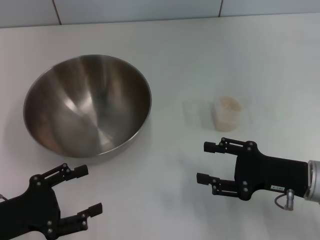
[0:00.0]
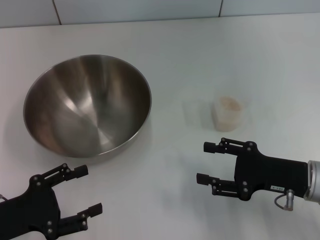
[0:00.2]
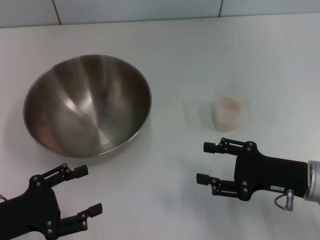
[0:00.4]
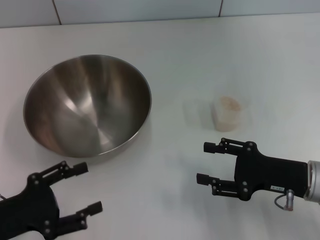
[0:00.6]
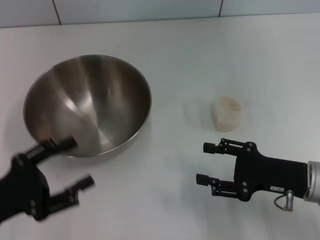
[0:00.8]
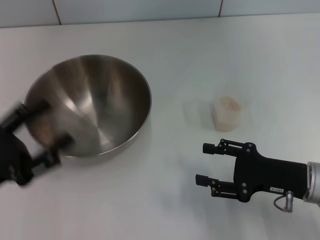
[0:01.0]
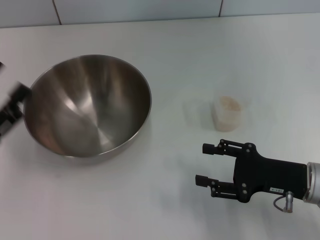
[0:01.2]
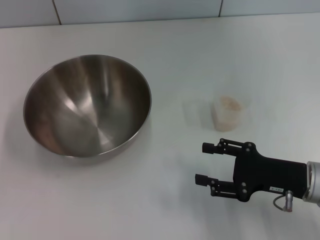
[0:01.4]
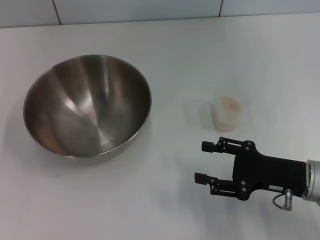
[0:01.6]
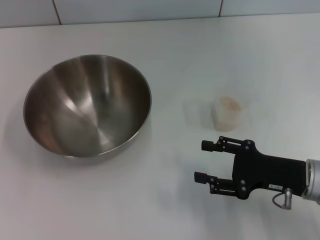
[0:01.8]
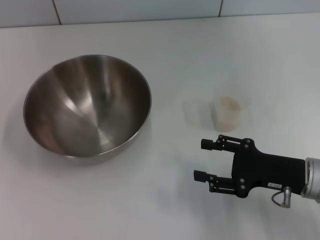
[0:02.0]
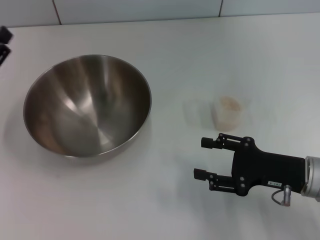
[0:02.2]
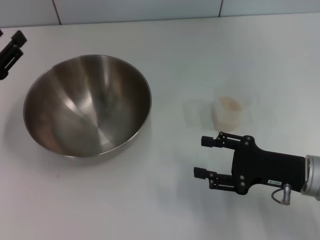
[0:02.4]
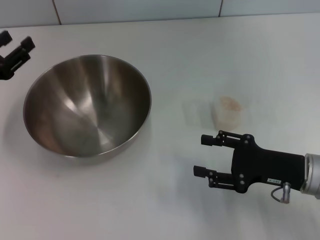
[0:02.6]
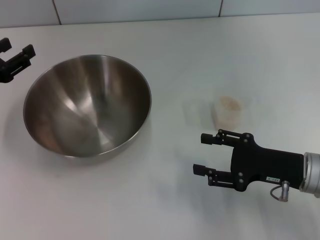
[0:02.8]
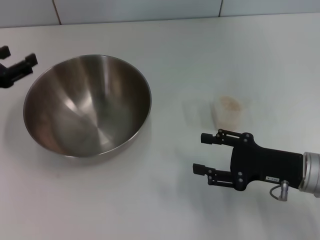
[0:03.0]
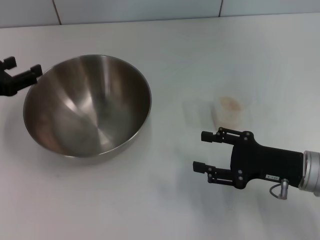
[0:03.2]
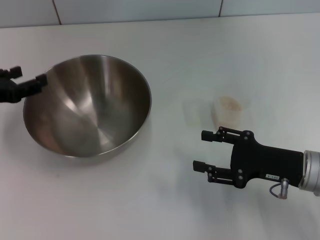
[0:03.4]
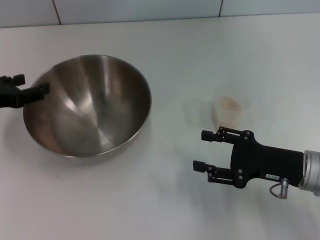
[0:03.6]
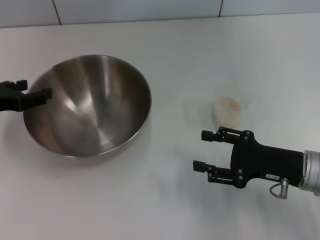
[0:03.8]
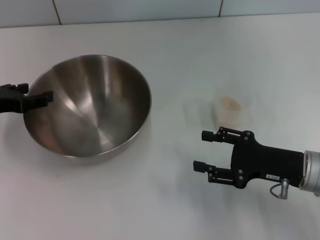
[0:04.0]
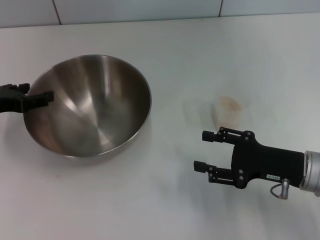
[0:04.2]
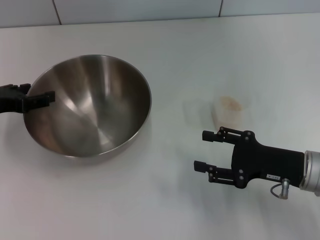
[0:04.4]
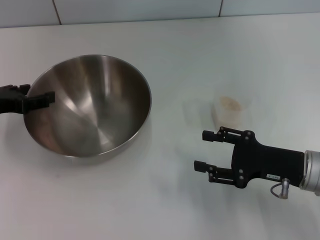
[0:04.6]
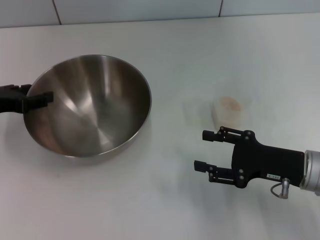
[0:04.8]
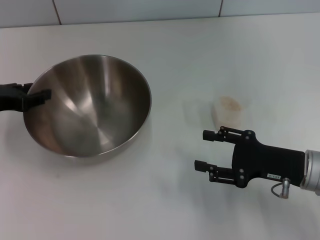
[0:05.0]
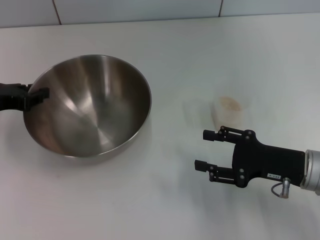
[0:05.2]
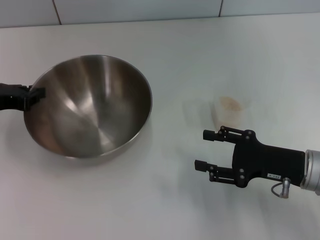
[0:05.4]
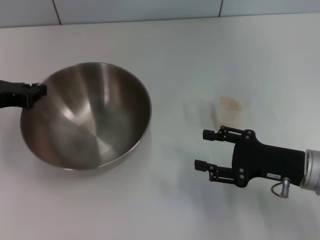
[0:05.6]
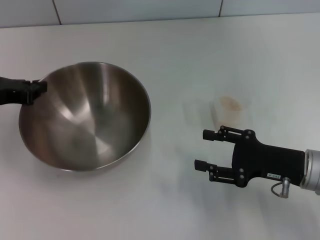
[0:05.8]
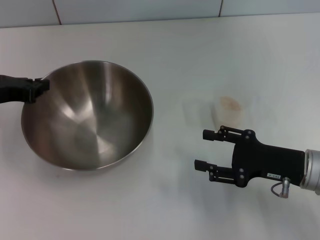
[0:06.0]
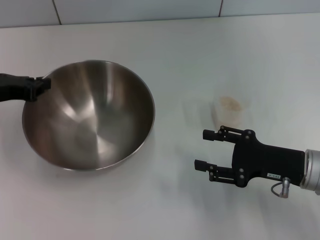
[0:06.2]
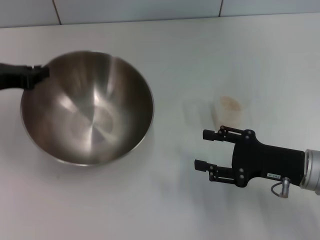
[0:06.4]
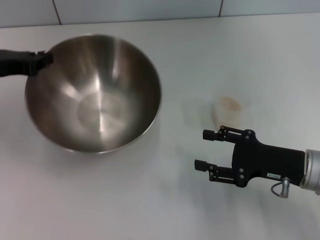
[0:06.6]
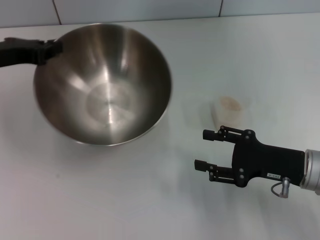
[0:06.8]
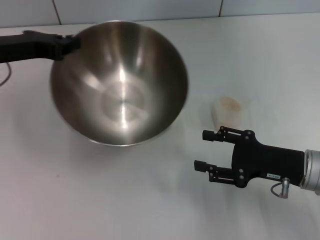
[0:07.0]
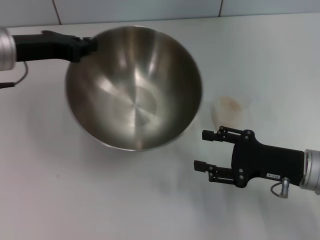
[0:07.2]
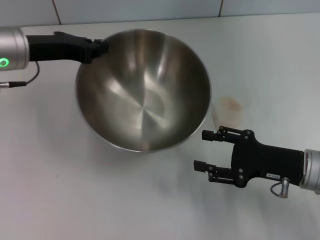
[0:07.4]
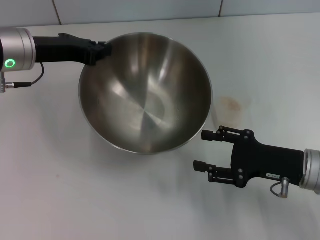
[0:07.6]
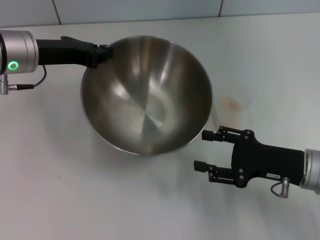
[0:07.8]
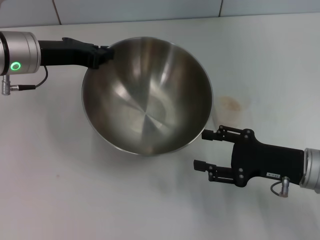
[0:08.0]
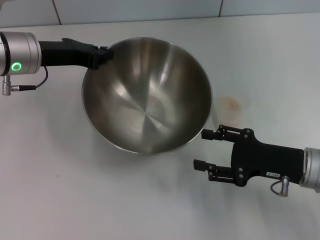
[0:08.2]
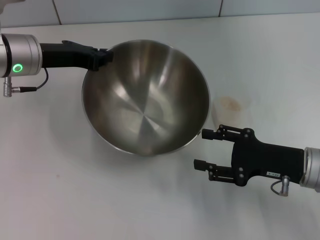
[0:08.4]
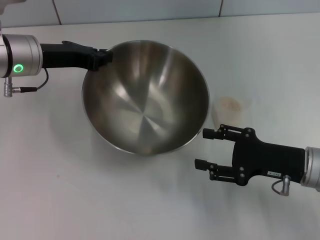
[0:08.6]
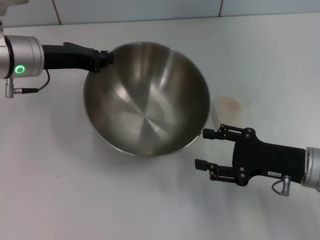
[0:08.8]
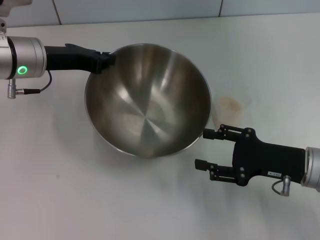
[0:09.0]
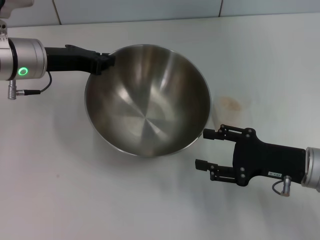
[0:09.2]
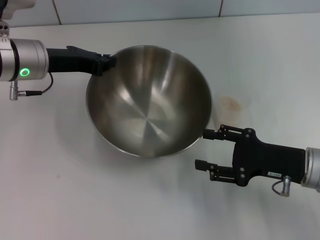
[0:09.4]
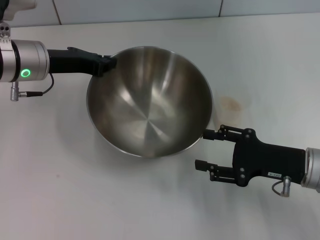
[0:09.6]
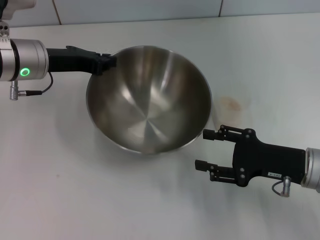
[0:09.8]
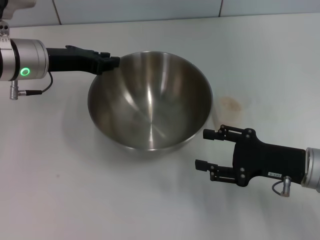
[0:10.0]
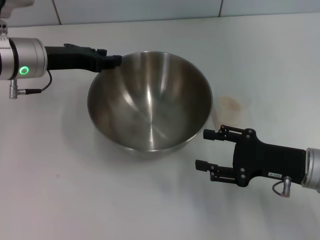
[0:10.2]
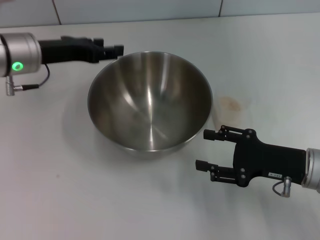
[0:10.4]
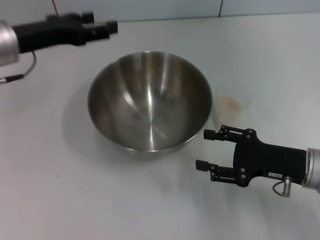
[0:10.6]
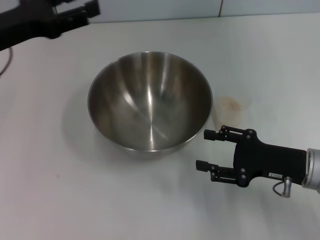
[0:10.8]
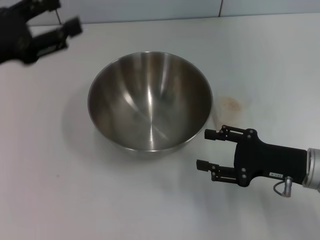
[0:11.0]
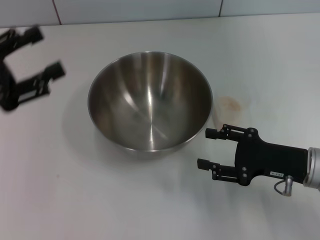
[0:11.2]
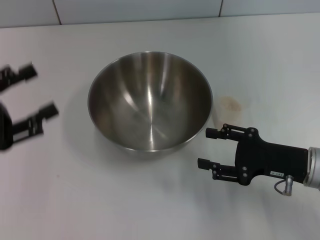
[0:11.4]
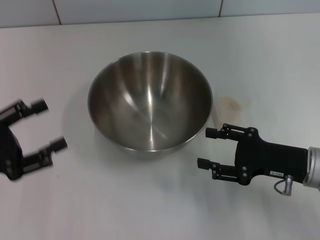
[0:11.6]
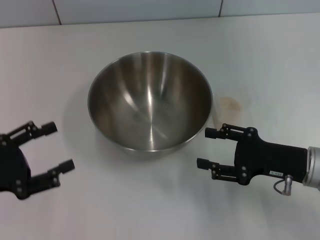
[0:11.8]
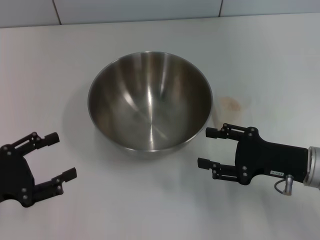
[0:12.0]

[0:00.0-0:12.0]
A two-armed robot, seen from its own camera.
Task of the whole recording: Place the bowl in the middle of the table with one hand and pour the rice from the grain cup into it with the other hand.
Step, 0:00.0 to 0:06.6: Pick up the bowl with the left gripper.
Step, 0:06.8 to 0:11.0: Place the bowl in the center of view with the left gripper.
0:00.0 to 0:01.6: The left gripper moves some 5 cm.
0:01.6 to 0:03.0: The left gripper is displaced forward by approximately 10 cm.
0:04.4 to 0:06.0: The left gripper closes up.
0:06.0 to 0:07.6: The left gripper shifts about 10 cm to the right and forward.
0:07.6 to 0:09.0: There are only small adjustments of the grippers.
0:09.0 to 0:10.4: The left gripper opens its fingers.
0:10.4 to 0:12.0: The left gripper travels backward, to the left and downward by some 25 cm, and opens its fingers.

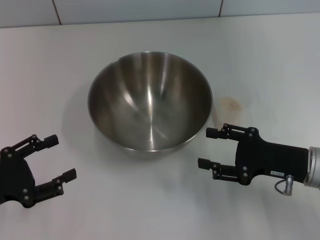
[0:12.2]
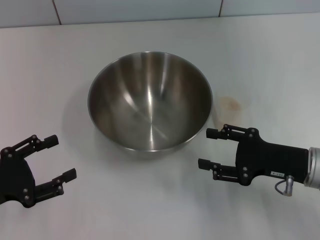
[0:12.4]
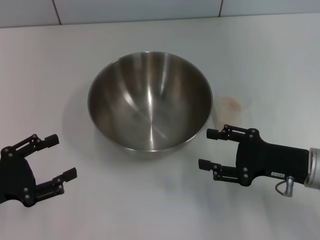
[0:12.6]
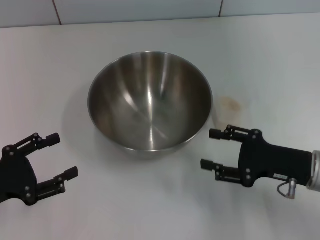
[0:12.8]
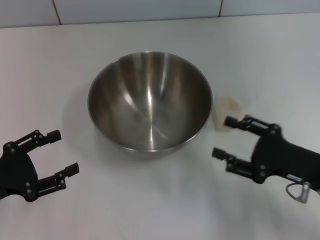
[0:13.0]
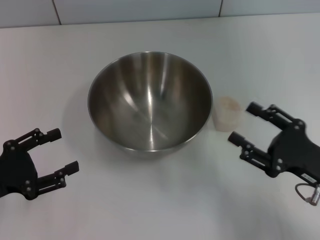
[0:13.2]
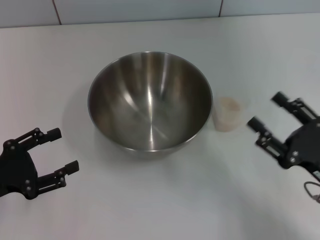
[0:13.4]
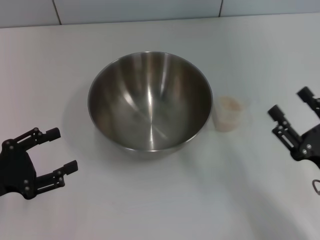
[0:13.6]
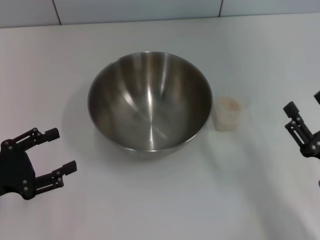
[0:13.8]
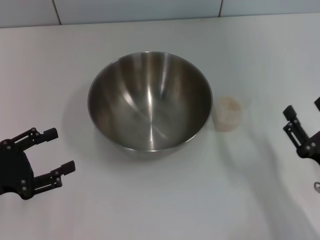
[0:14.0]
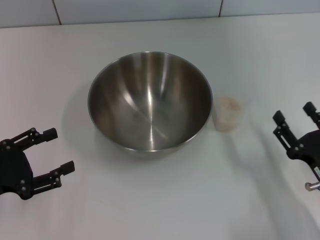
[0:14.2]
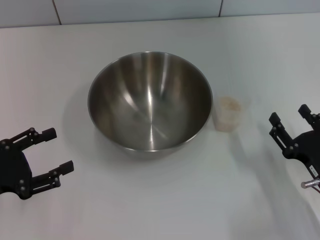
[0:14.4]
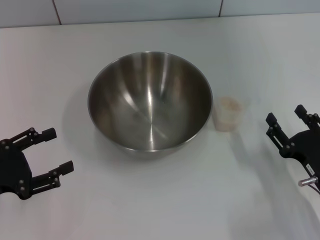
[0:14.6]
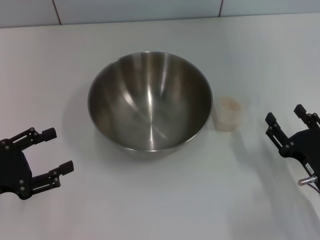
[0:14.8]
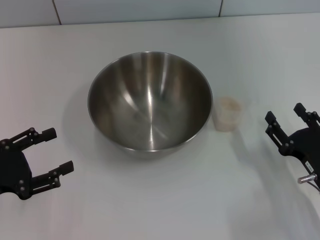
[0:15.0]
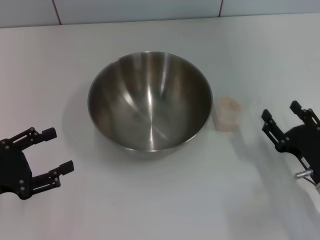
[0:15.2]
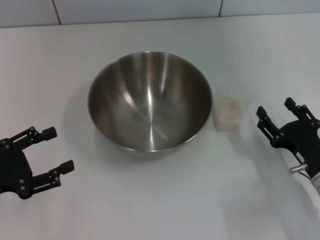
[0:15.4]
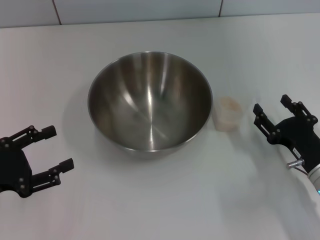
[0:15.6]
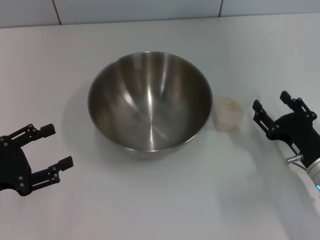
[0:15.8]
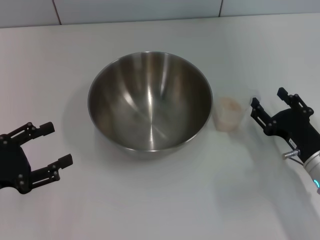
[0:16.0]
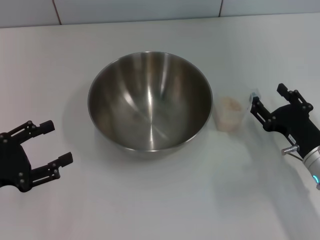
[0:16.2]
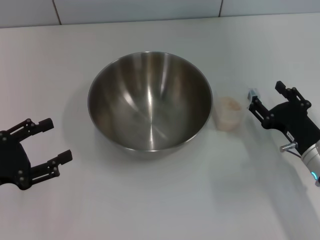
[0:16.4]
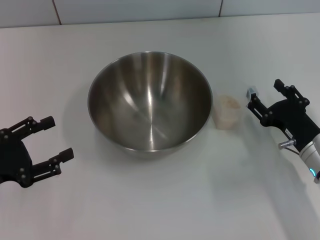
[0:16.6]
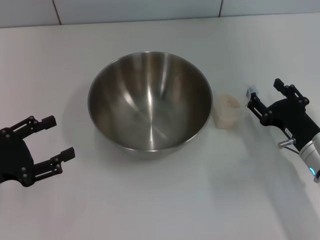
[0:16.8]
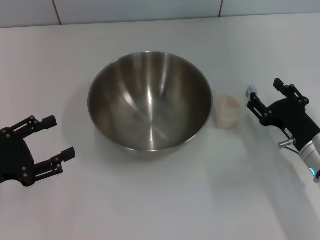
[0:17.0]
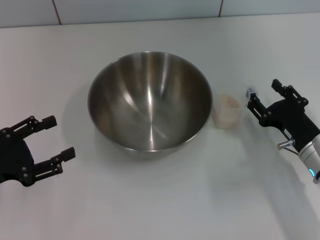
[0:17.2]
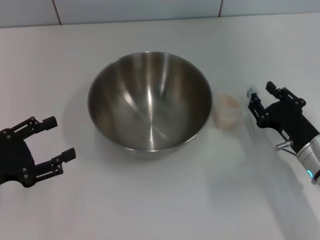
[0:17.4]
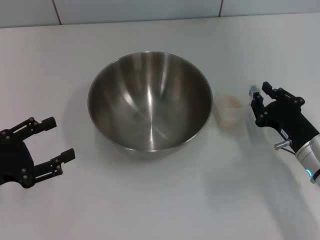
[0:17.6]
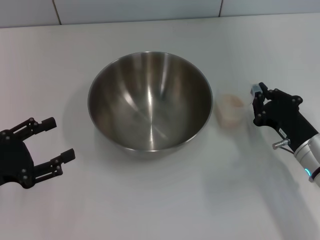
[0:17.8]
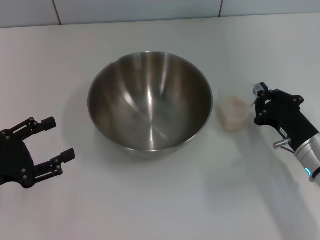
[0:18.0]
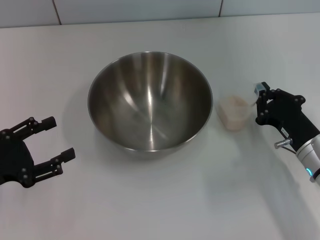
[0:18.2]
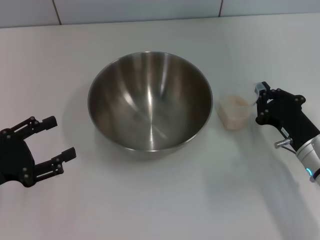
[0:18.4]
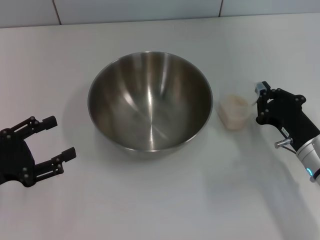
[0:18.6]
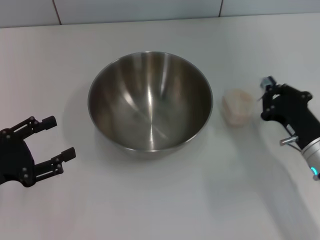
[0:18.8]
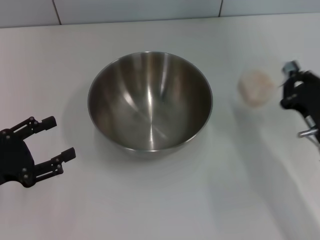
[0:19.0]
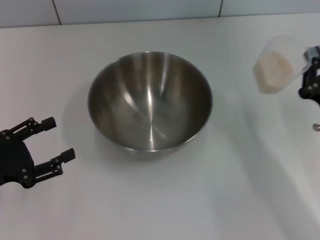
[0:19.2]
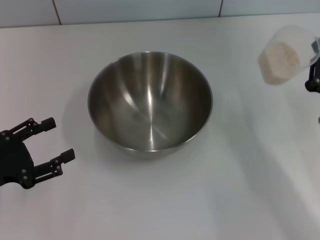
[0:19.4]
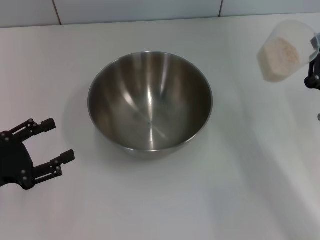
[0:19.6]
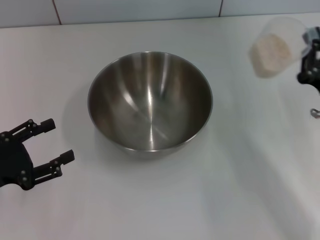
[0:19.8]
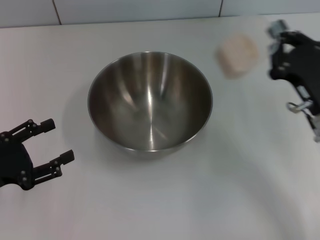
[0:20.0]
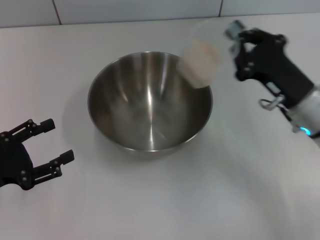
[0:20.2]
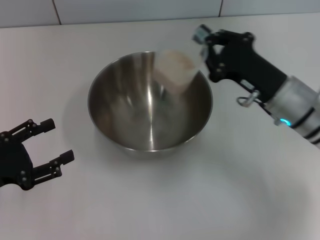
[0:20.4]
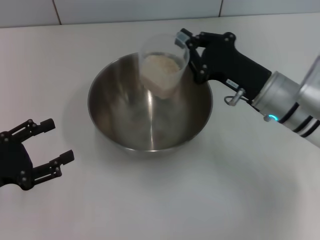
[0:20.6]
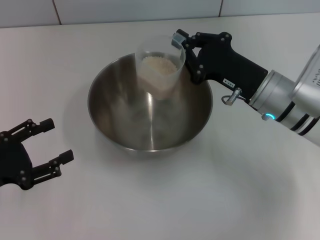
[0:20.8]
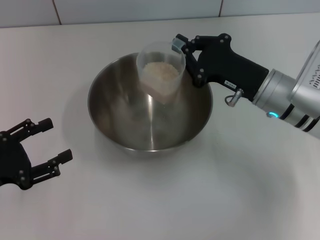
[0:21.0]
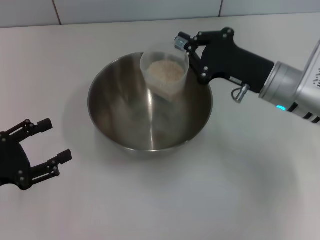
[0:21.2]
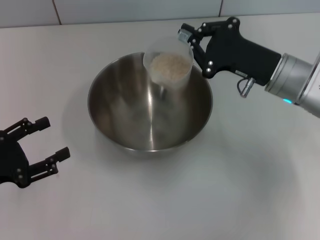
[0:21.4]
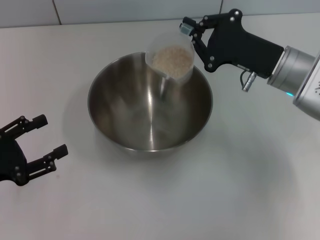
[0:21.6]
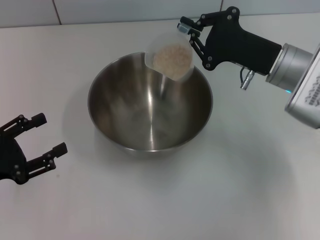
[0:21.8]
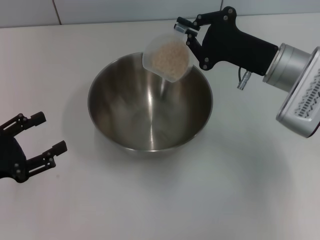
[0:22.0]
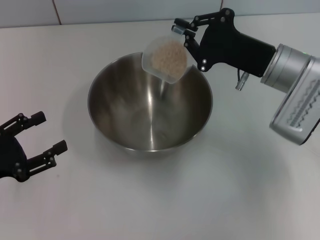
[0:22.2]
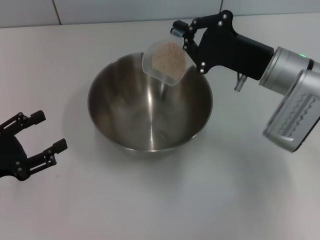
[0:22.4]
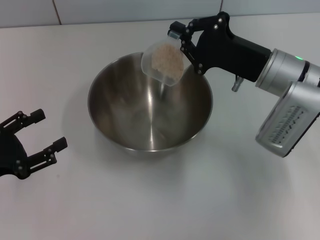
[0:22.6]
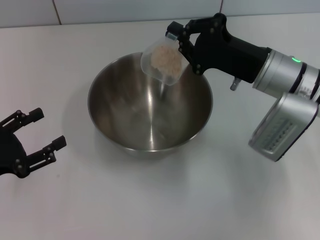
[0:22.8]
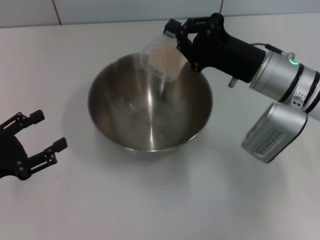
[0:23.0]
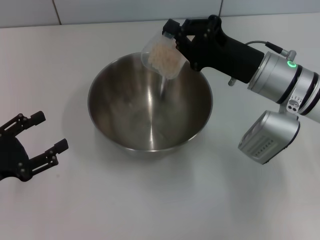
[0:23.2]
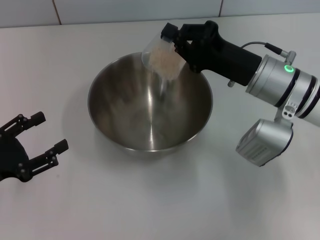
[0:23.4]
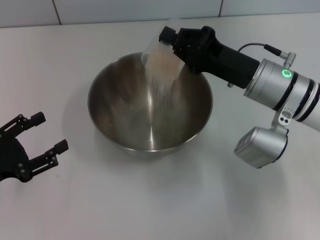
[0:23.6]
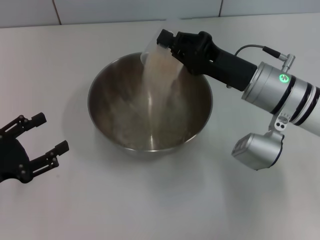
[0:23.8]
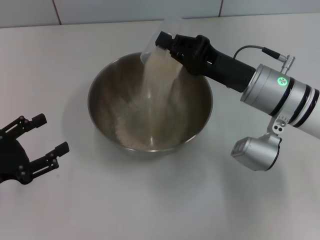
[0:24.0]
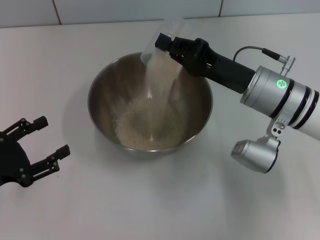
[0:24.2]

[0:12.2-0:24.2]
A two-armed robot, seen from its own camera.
Task of the whole recording: Place the bowl in the middle of the table with one hand and pour the rice from the grain cup into it with the other hand.
Step, 0:12.2 to 0:19.0: Pick up the cup with rice in it with the right gripper.
0:12.2 to 0:13.8: The right gripper shifts about 10 cm backward.
0:13.8 to 0:15.2: The grippers stay close to where they were, moving slightly.
0:15.2 to 0:16.6: The right gripper moves forward, approximately 5 cm.
0:16.6 to 0:18.2: The right gripper closes its fingers.
0:18.2 to 0:19.8: The right gripper travels upward by approximately 5 cm.
0:19.8 to 0:21.2: The right gripper is displaced forward and to the left by approximately 10 cm.
